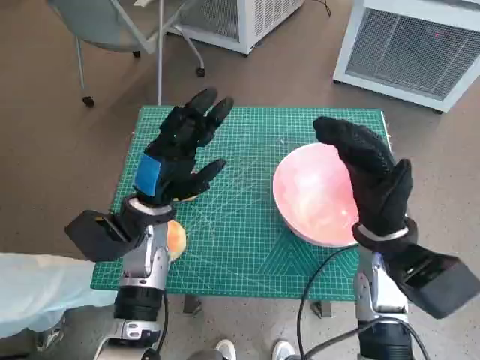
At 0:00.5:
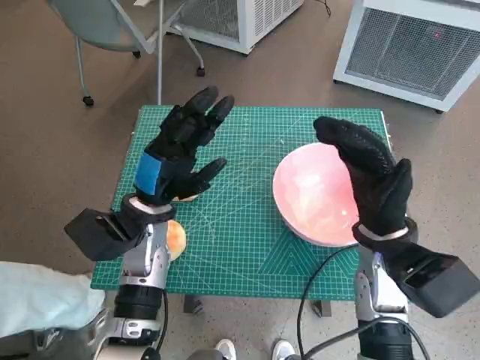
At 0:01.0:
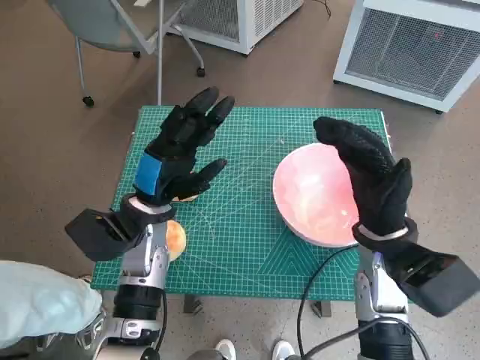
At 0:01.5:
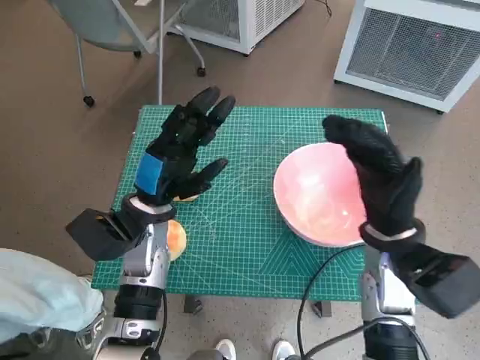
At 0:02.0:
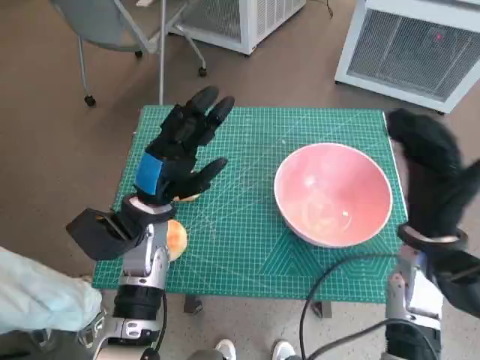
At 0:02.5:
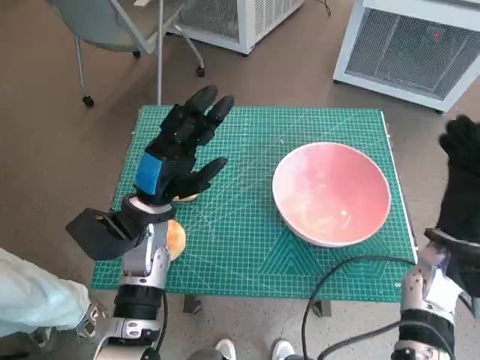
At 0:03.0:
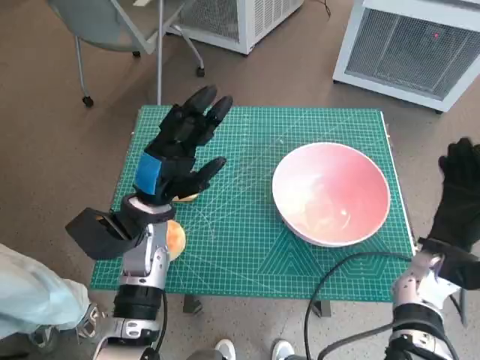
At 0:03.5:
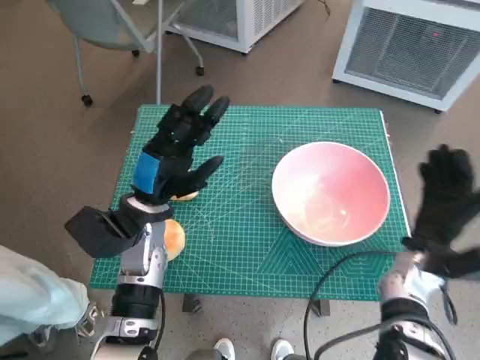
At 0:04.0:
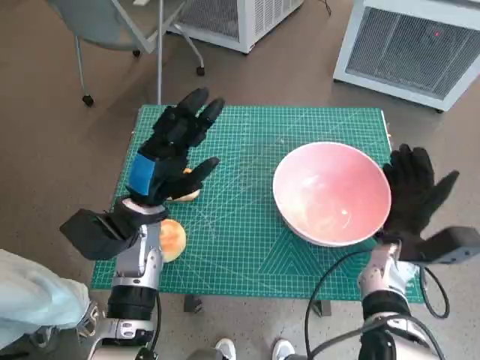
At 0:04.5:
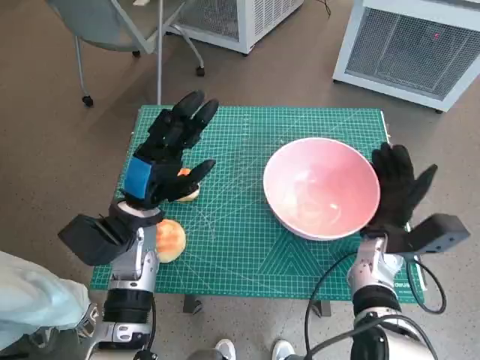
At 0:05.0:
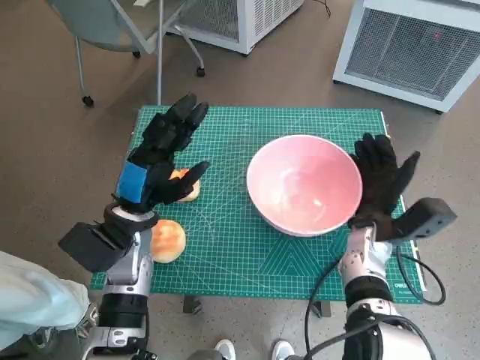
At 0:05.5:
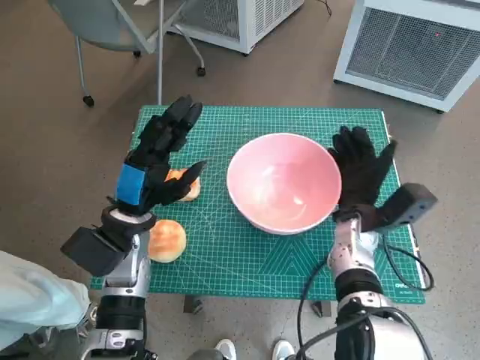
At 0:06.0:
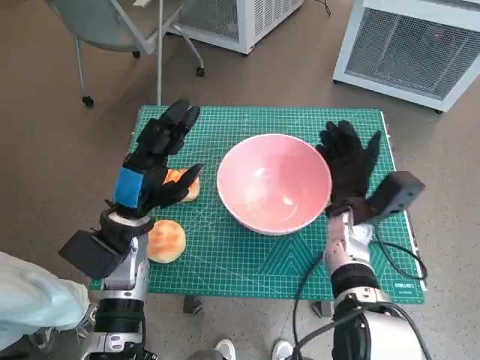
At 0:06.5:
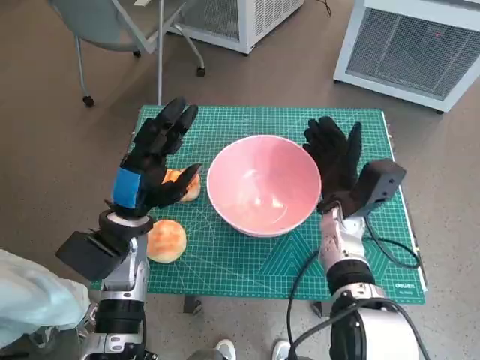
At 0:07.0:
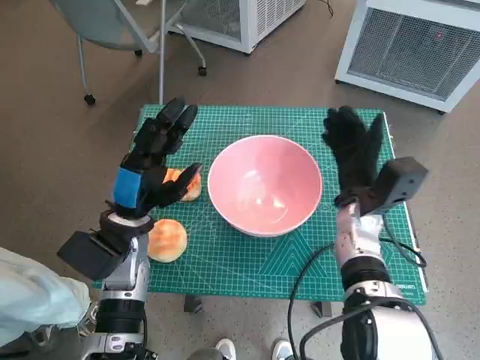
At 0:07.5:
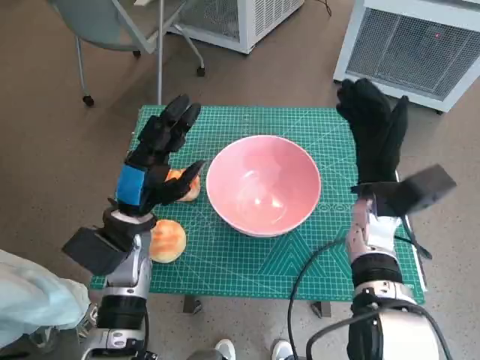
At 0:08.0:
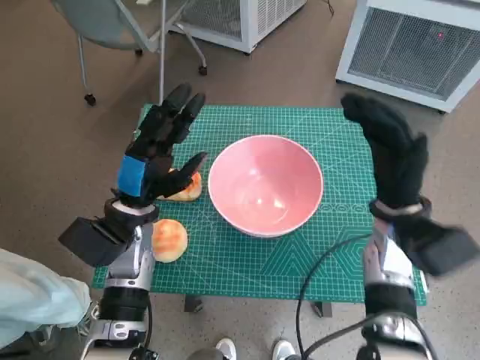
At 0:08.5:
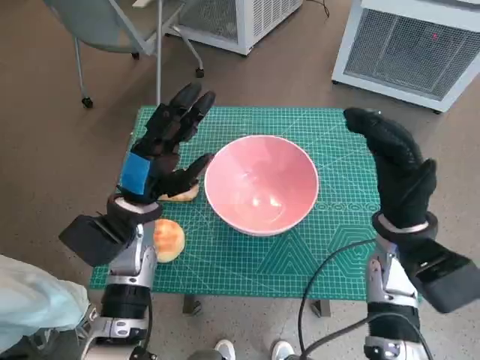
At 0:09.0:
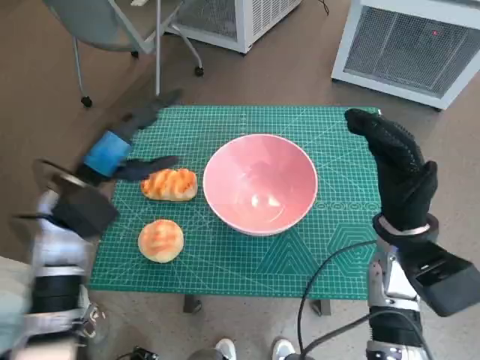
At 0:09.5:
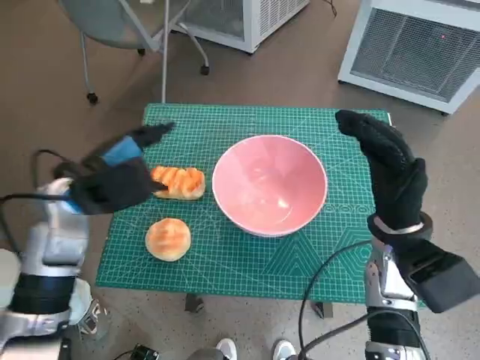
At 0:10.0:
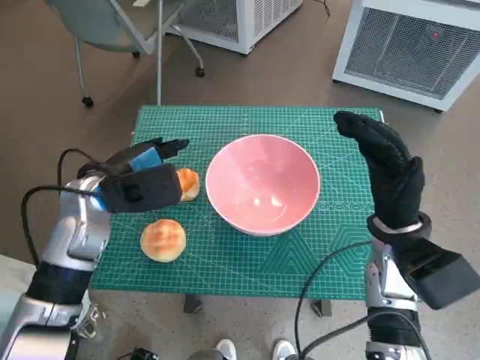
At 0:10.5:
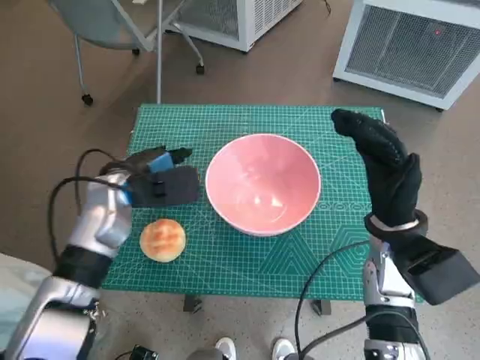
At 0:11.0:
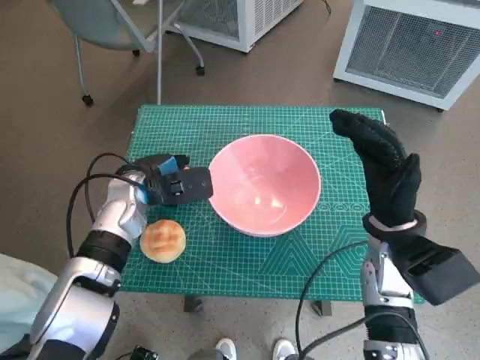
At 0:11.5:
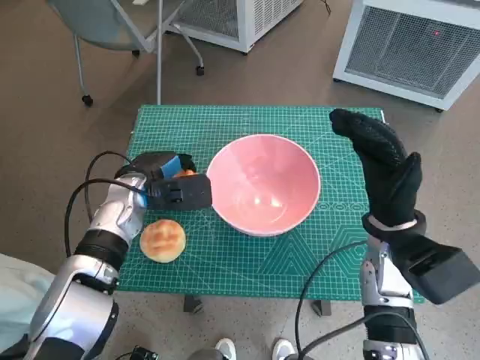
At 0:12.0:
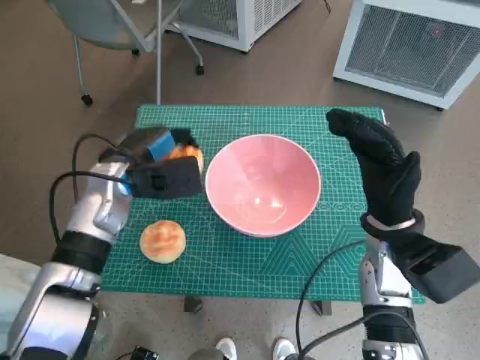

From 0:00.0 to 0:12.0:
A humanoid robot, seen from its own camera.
Task of the whole recording: Push the bowl into the center of the table and put the bread into the bowl.
Step, from 0:00.0 to 0:06.5: Move the pink bowl to the center of table with right hand.
Step, from 0:07.0 to 0:11.0: Grasp the long bread with left hand.
From 0:02.0 to 0:04.0: The right hand moves downward, roughly 10 cm.
From 0:04.0 to 0:06.0: The right hand shifts some 5 cm to the left.
From 0:06.0 to 0:08.0: The right hand goes approximately 5 cm upward.
From 0:08.0 to 0:10.0: The left hand moves upward, about 5 cm.

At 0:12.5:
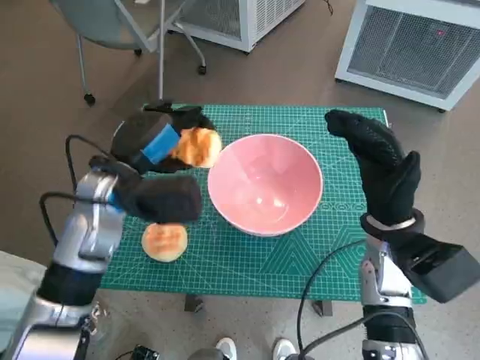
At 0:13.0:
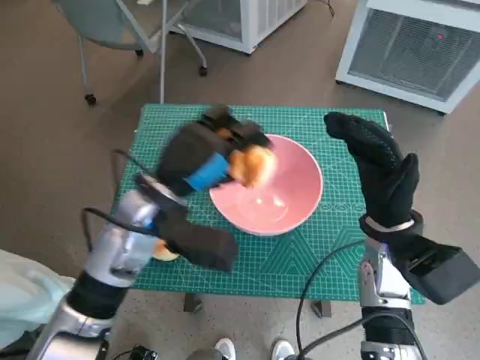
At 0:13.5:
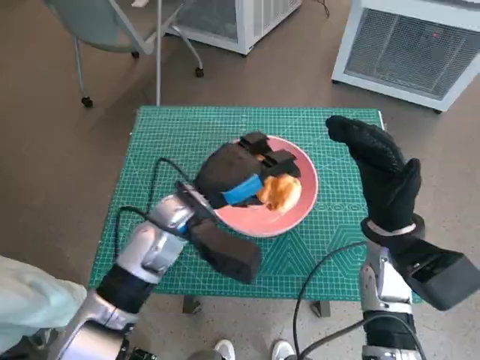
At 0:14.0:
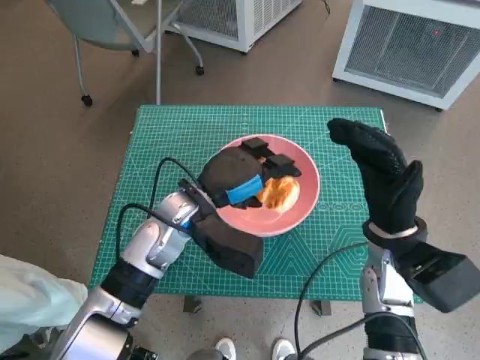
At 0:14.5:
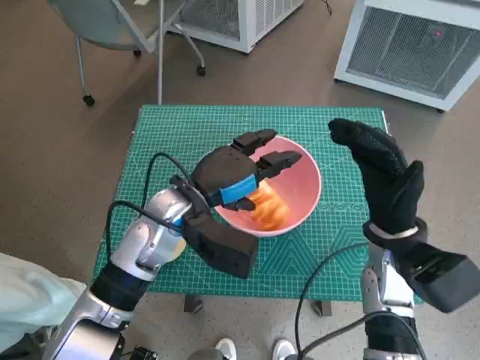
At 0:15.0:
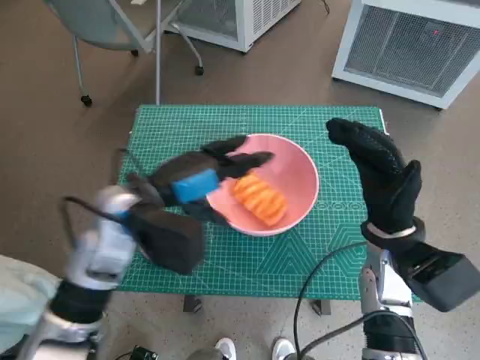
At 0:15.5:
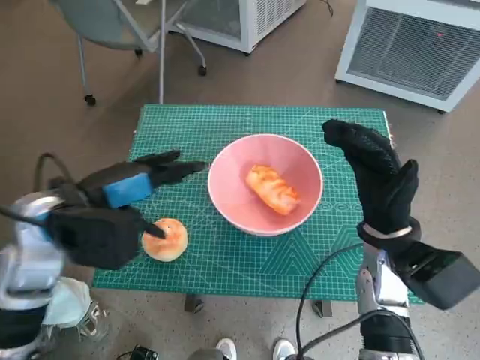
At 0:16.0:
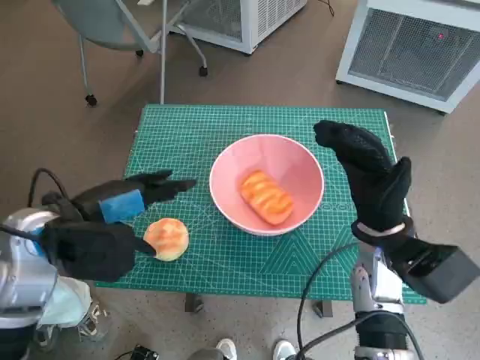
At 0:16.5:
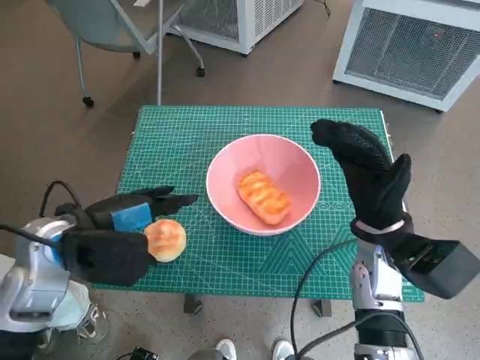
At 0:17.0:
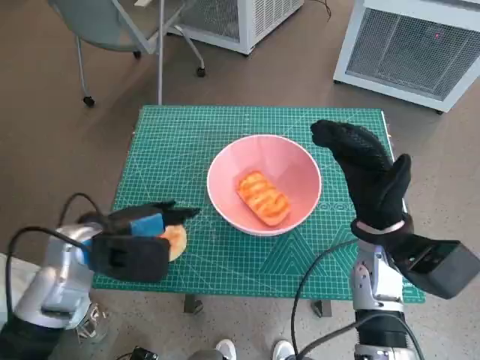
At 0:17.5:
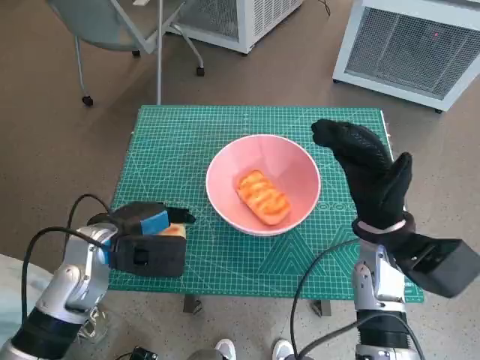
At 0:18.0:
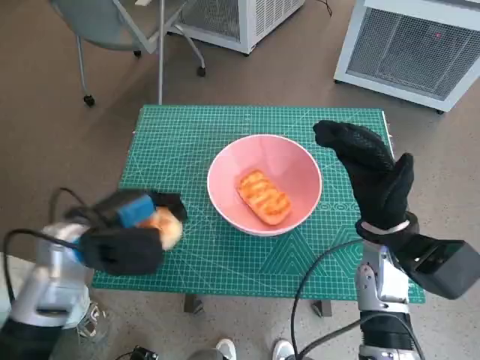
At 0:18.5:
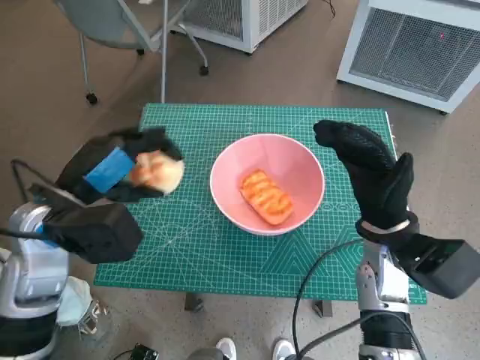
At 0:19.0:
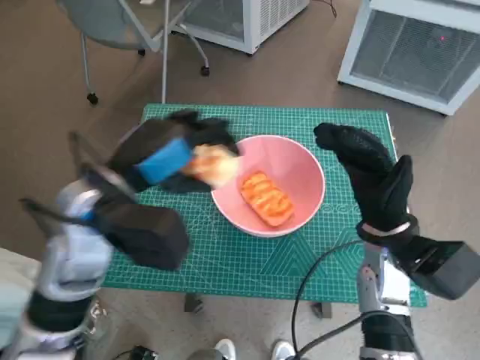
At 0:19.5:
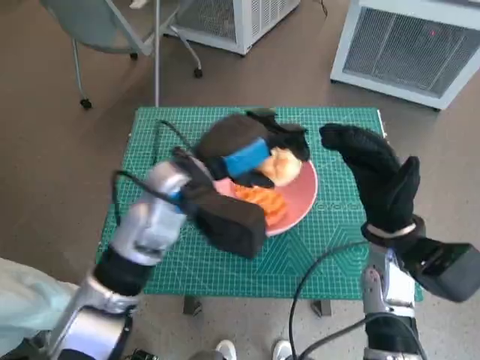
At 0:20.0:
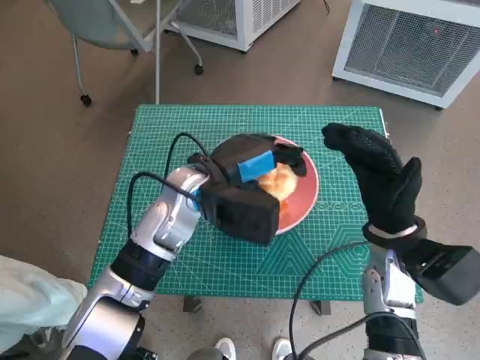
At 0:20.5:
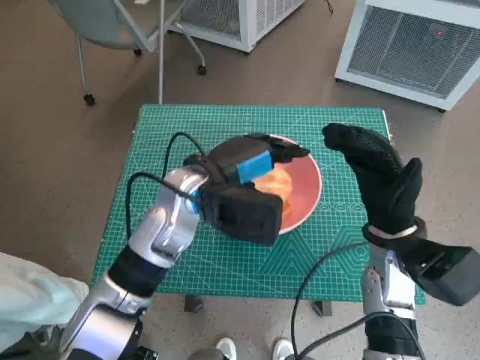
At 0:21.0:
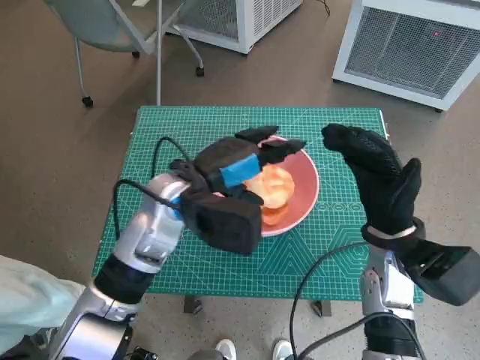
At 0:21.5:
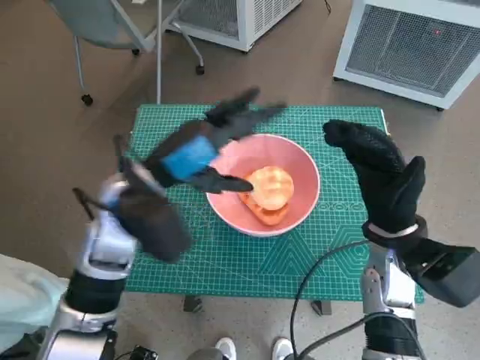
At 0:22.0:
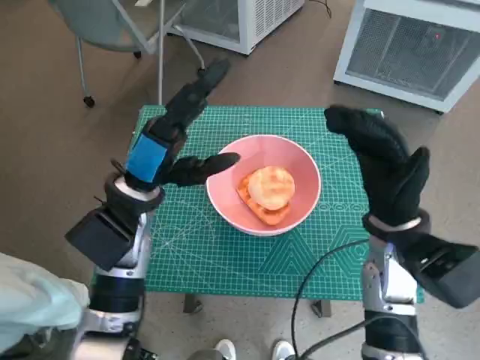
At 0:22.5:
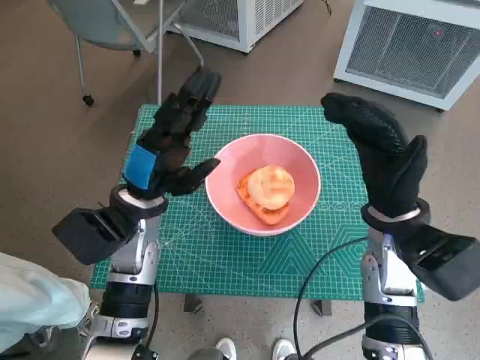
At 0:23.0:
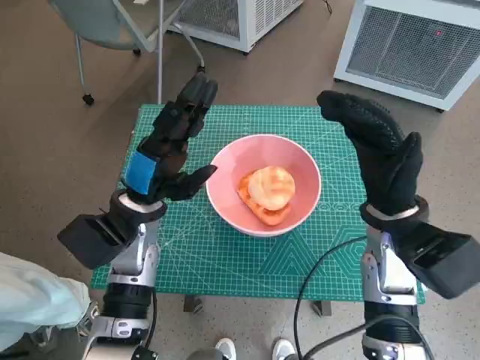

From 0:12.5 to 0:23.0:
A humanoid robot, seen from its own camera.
Task of the whole recording: Push the bowl into the center of the table and put the bread into the bowl.
Step, from 0:12.5 to 0:14.0: Place the long bread in pink bowl with left hand.
Step, from 0:14.5 to 0:17.5: Grasp the round bread with left hand.
Step, from 0:18.0 to 0:20.5: Place the round bread in pink bowl with left hand.
From 0:12.5 to 0:14.5: The left hand goes about 10 cm to the right.
From 0:14.5 to 0:16.5: The left hand heads to the left and backward, covering some 15 cm.
From 0:16.5 to 0:19.0: The left hand shifts about 5 cm to the right.
From 0:19.0 to 0:21.0: The left hand shifts some 5 cm to the right.
From 0:21.0 to 0:23.0: The left hand is displaced to the left by some 5 cm.

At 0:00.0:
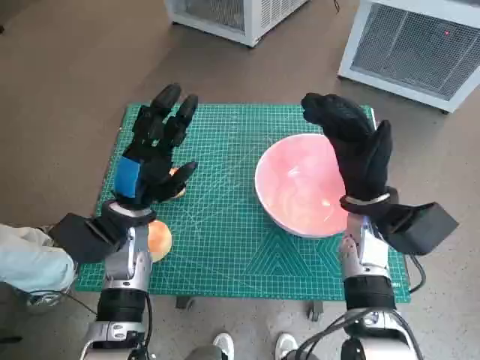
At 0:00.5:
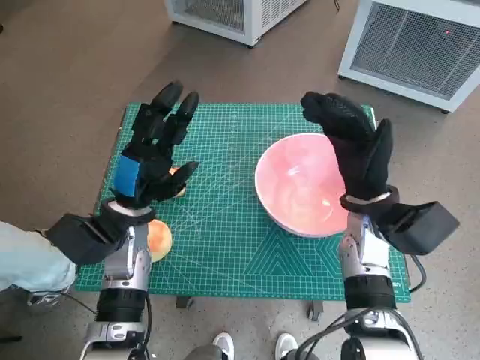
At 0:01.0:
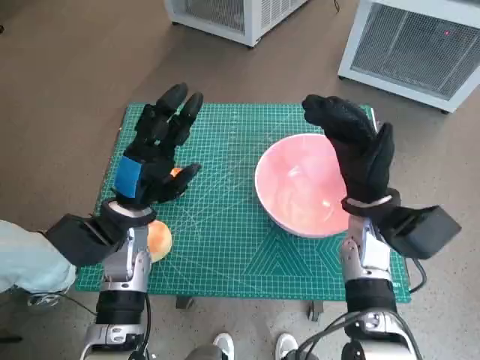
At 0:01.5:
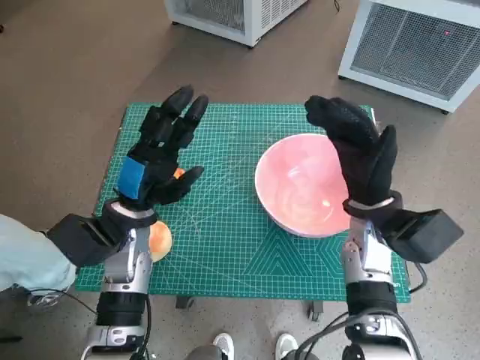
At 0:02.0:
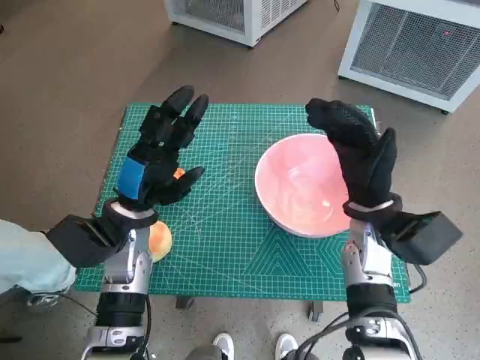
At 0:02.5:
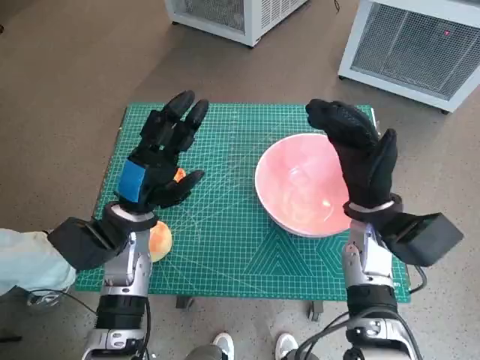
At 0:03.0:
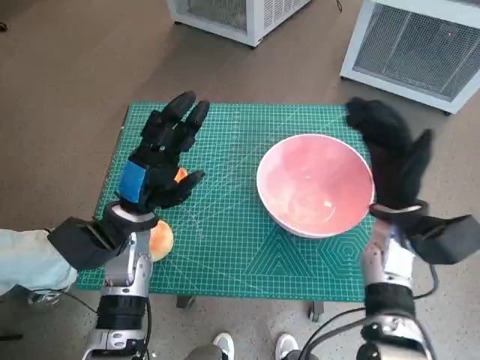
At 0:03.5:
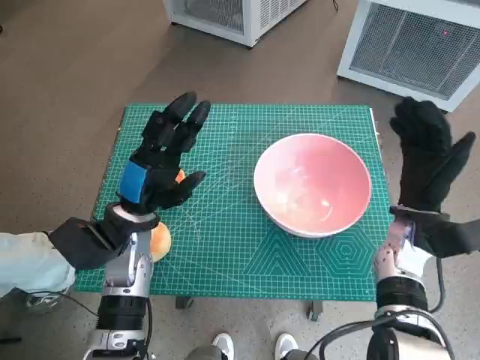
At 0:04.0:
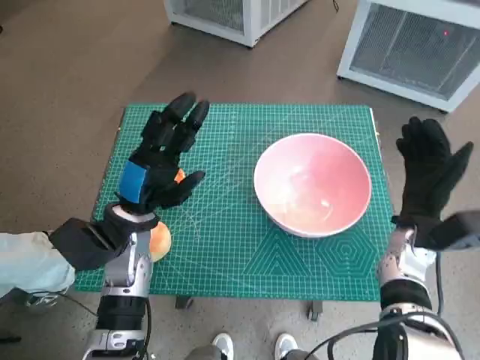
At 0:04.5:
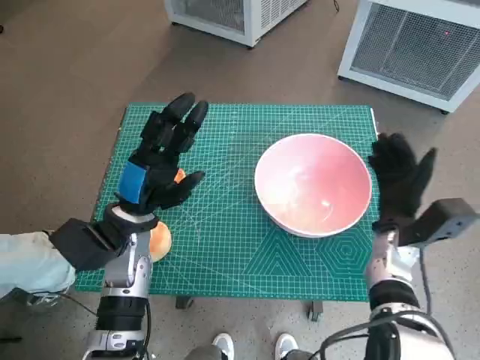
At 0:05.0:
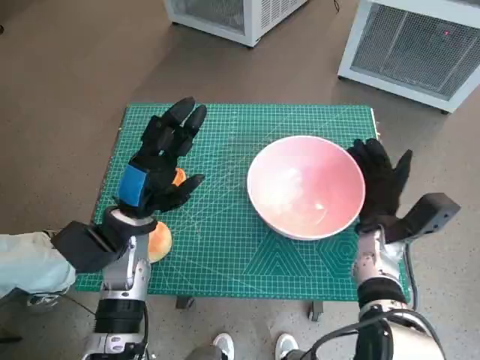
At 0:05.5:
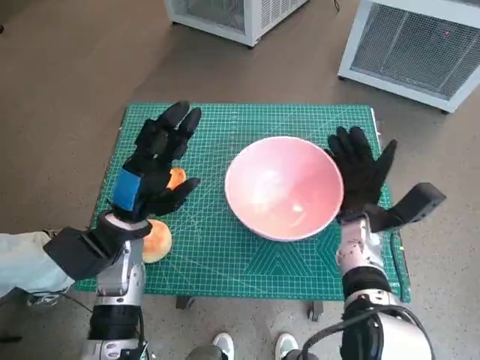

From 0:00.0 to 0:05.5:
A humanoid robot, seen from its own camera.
Task of the whole recording: Push the bowl into the center of the table and put the bread into the bowl.
From 0:02.0 to 0:03.5: The right hand is displaced to the right by approximately 5 cm.
From 0:03.5 to 0:05.5: The right hand heads to the left, covering some 5 cm.
